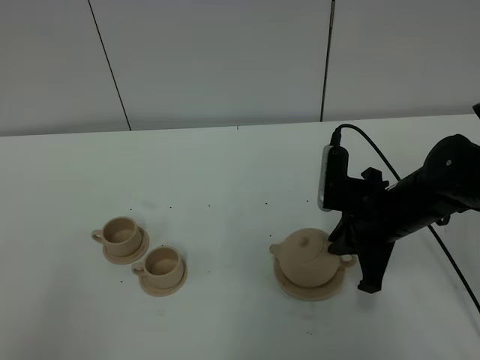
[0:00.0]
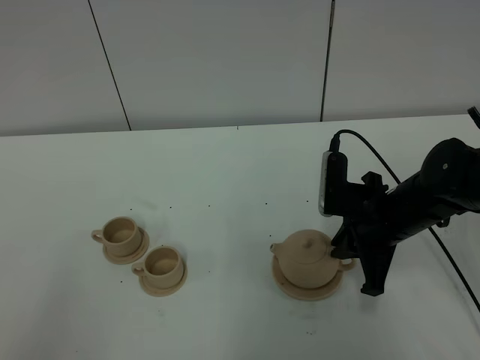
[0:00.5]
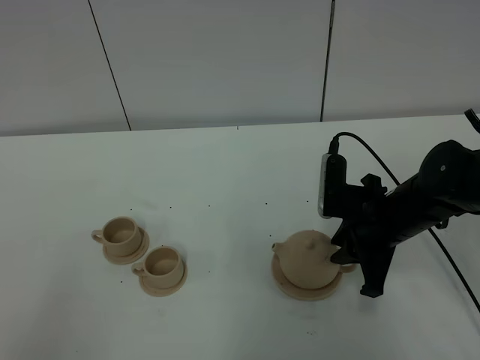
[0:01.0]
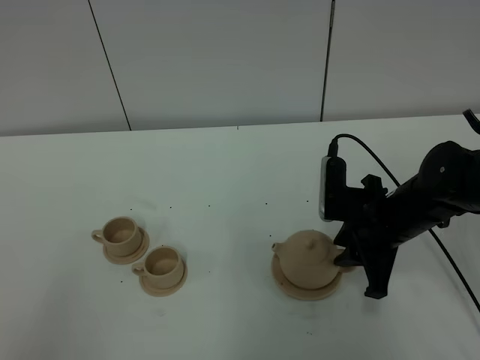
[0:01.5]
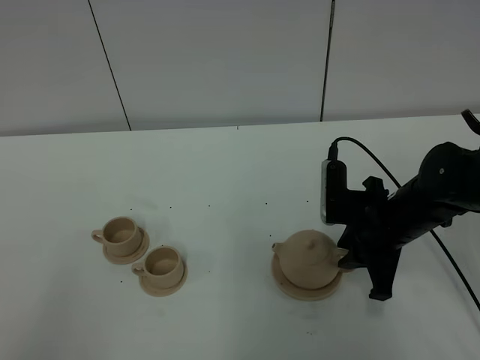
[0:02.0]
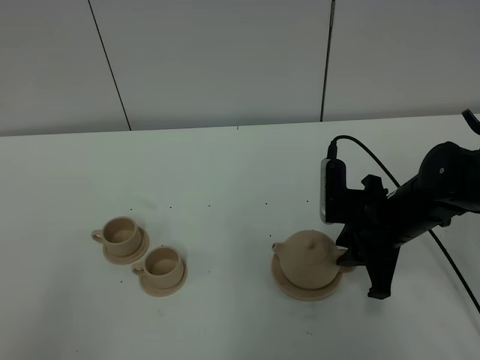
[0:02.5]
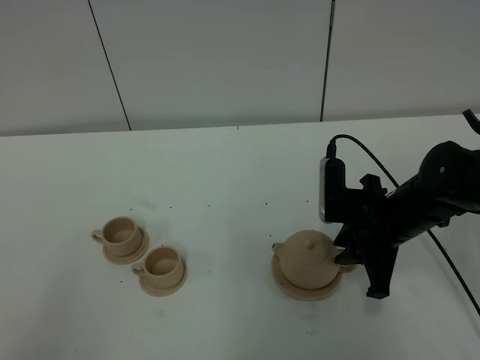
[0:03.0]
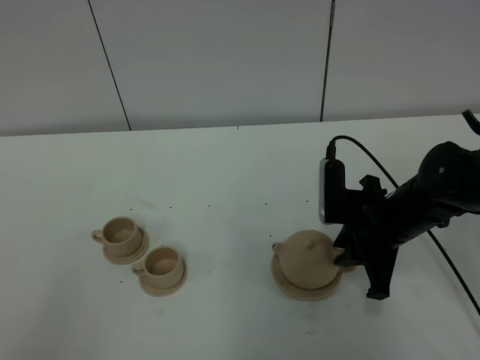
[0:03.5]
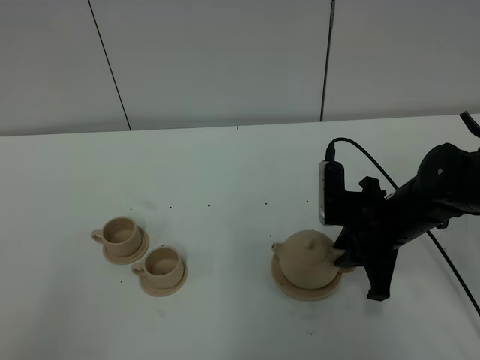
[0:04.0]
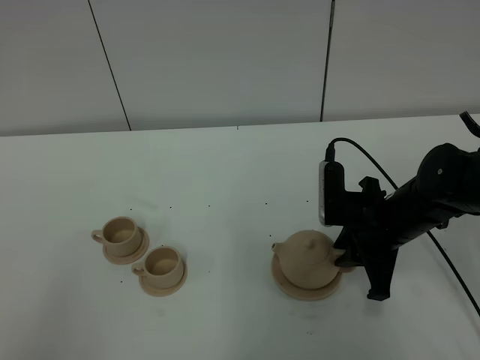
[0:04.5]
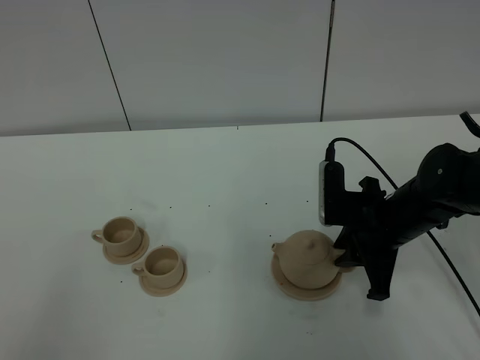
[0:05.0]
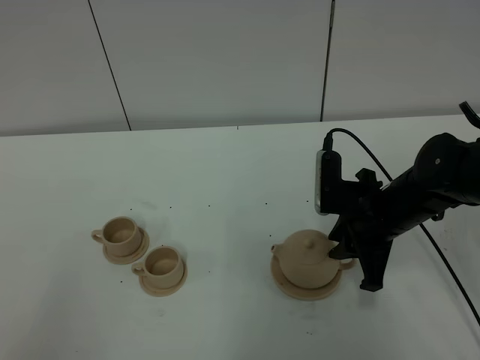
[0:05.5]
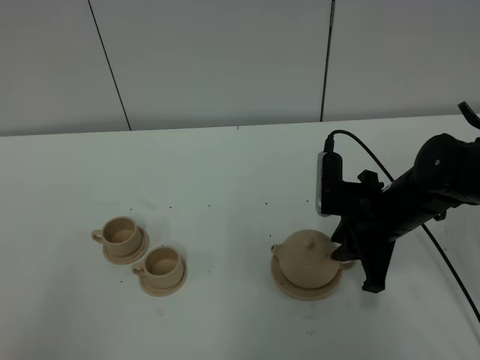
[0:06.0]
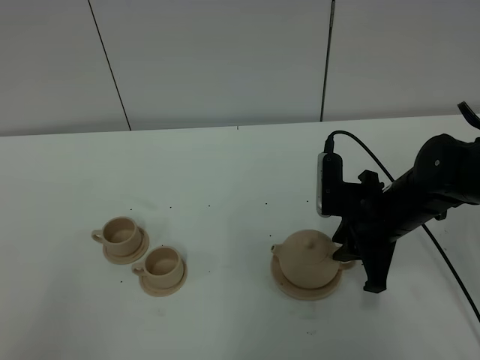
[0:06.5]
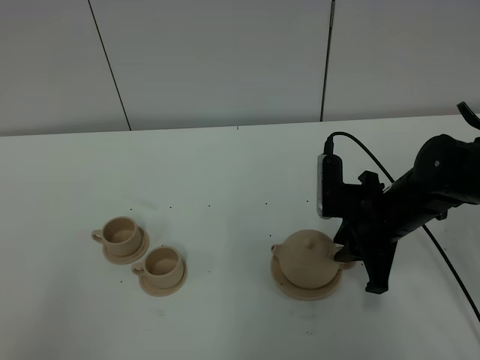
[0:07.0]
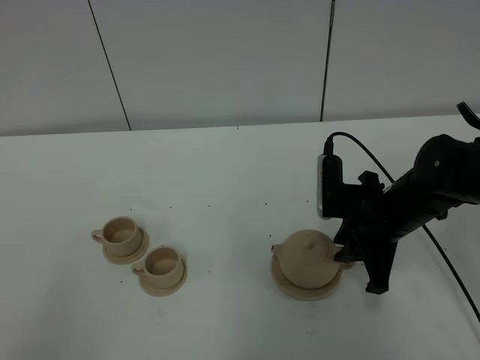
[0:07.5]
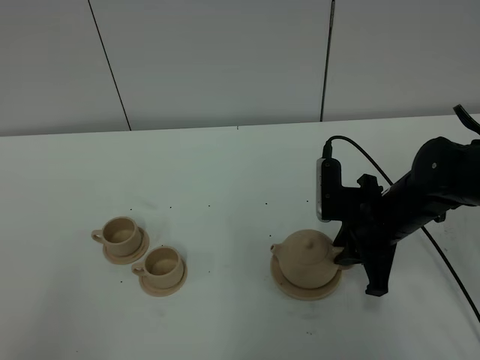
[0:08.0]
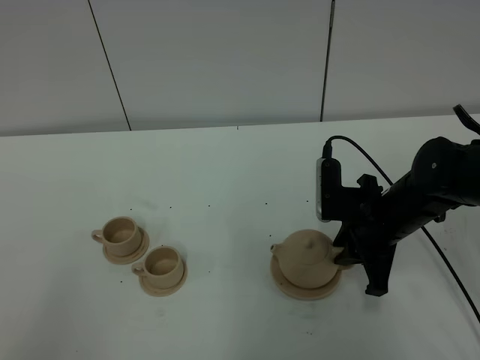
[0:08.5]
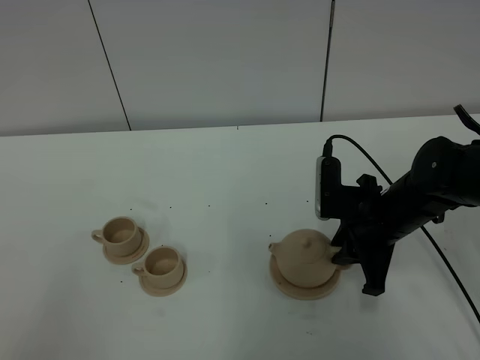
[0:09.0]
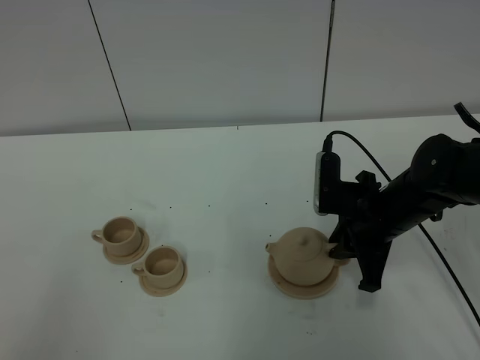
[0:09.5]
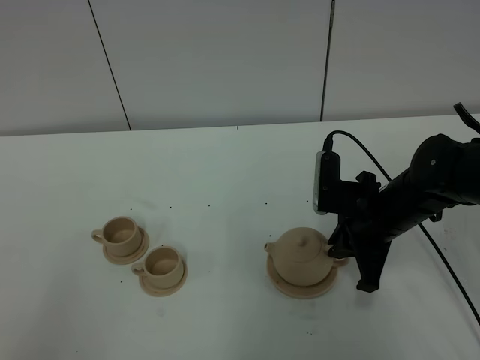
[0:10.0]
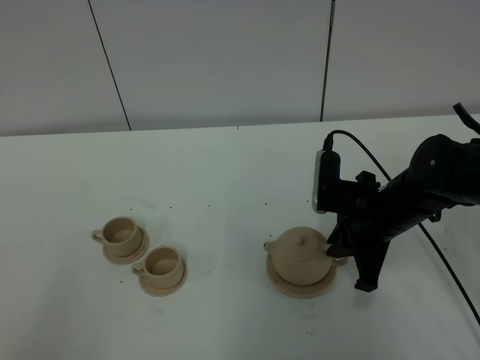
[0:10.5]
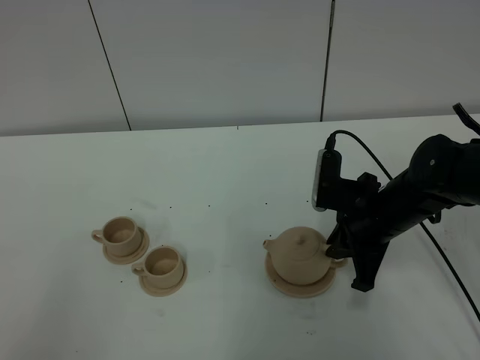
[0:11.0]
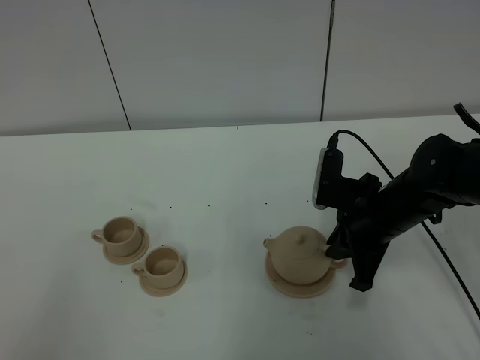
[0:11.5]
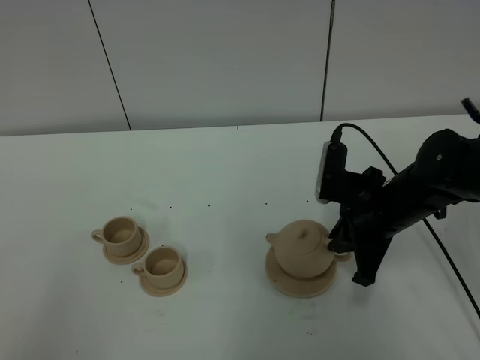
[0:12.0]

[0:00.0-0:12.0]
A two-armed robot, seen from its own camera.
Task of the whole recording: grasp the brown teapot and pour the tea into the two brown teacups one by one, put the brown teapot back in its original place.
Step, 0:00.0 to 0:12.0: Pick up the teapot with the right gripper.
0:00.0 to 0:02.0: The right gripper opens.
0:02.0 to 0:10.0: Both grippers stay about where they are.
0:10.0 to 0:12.0: The grippers move only a little.

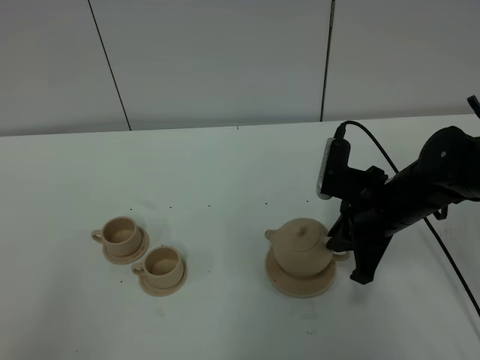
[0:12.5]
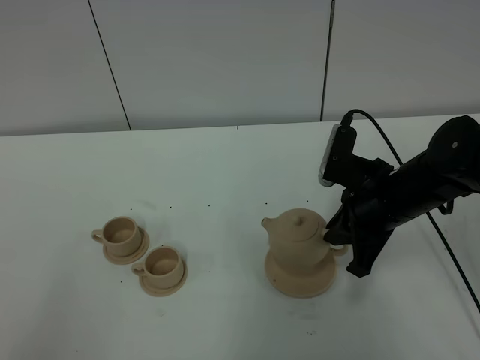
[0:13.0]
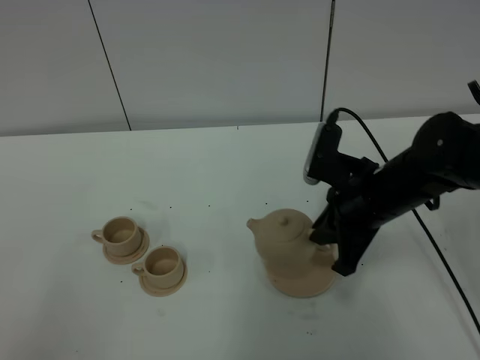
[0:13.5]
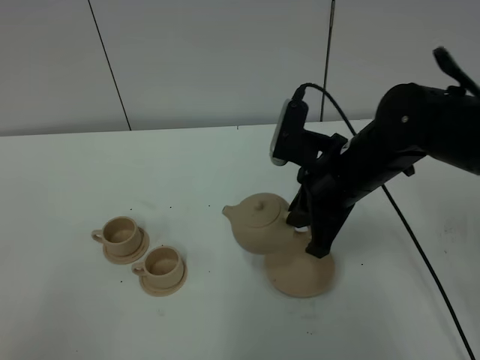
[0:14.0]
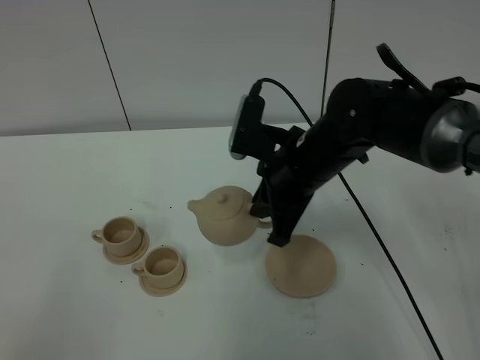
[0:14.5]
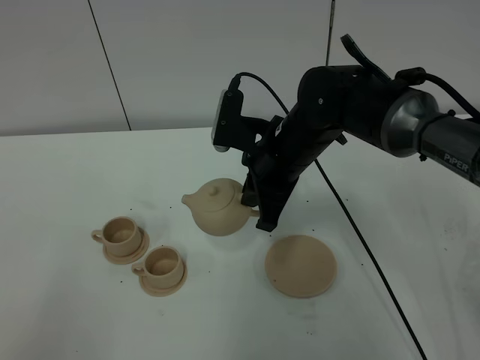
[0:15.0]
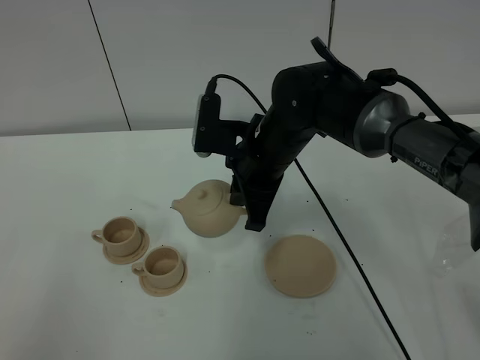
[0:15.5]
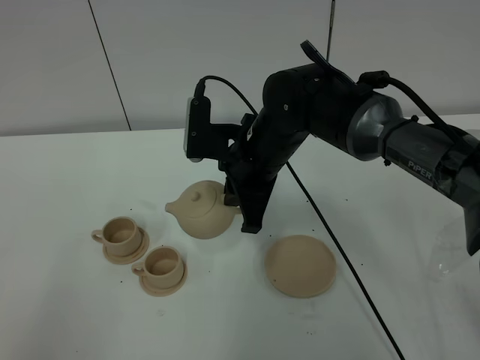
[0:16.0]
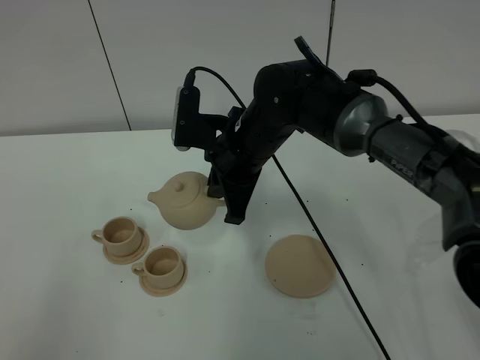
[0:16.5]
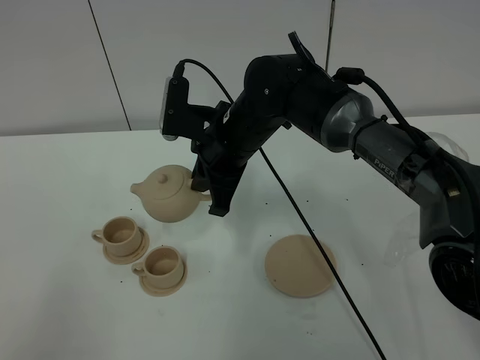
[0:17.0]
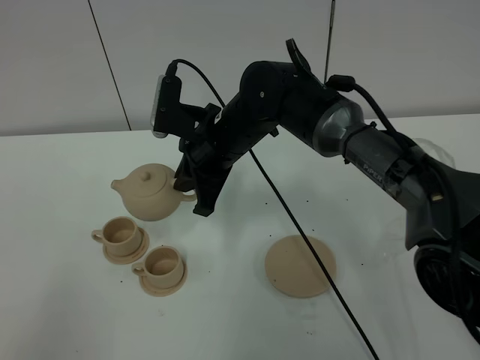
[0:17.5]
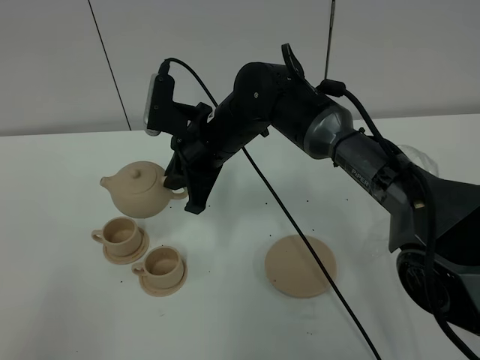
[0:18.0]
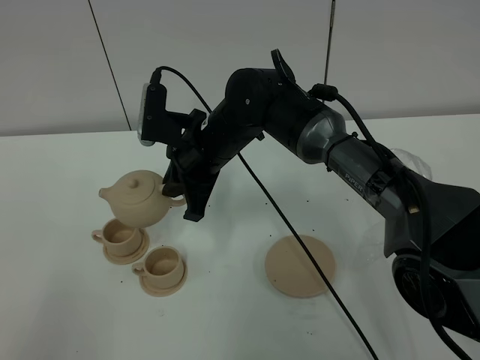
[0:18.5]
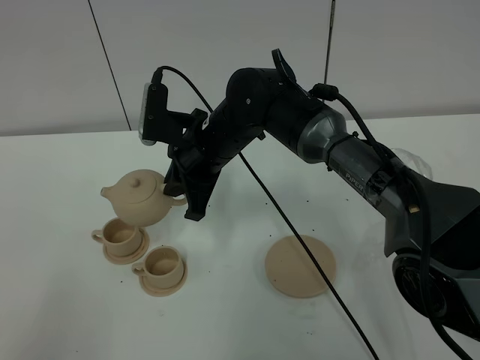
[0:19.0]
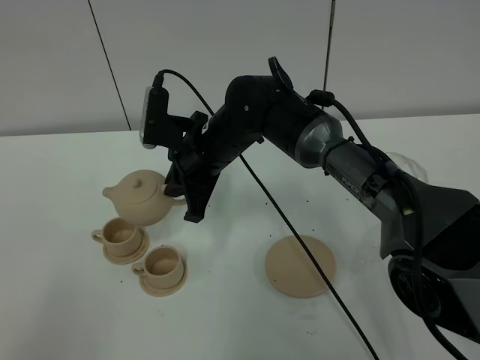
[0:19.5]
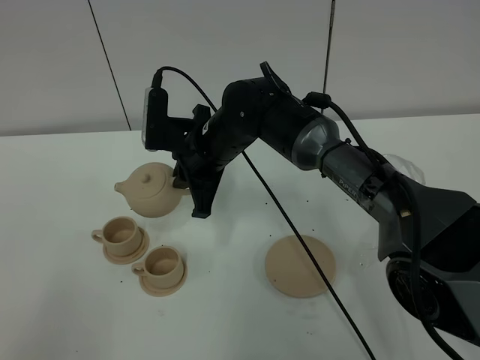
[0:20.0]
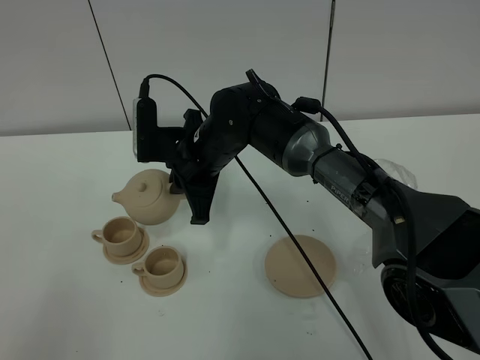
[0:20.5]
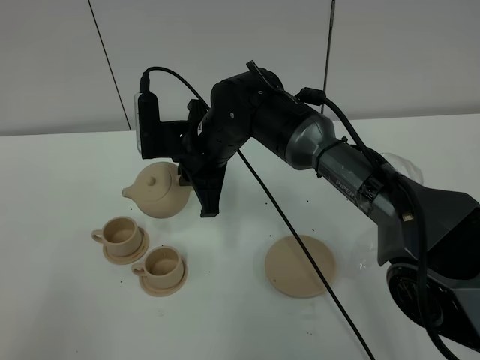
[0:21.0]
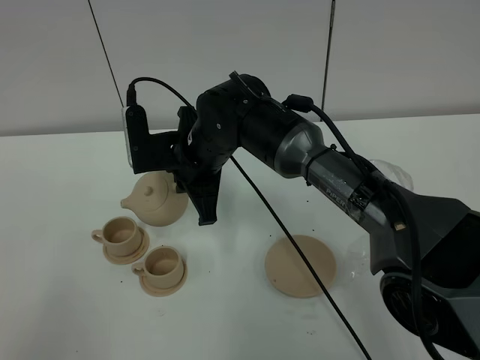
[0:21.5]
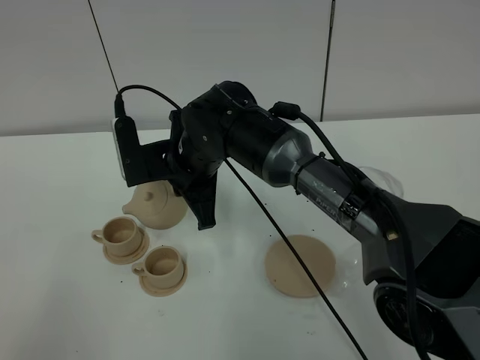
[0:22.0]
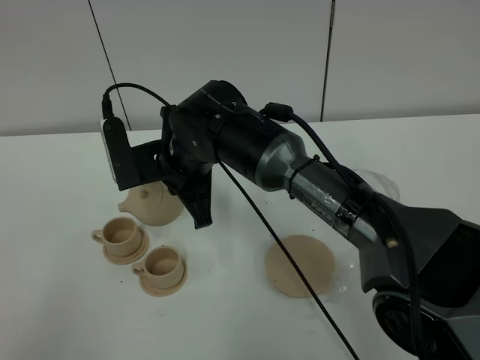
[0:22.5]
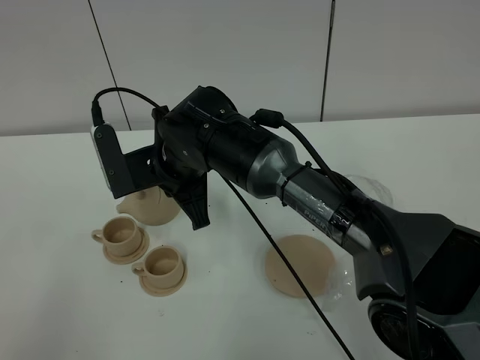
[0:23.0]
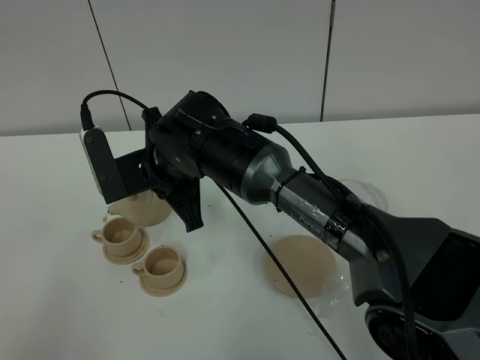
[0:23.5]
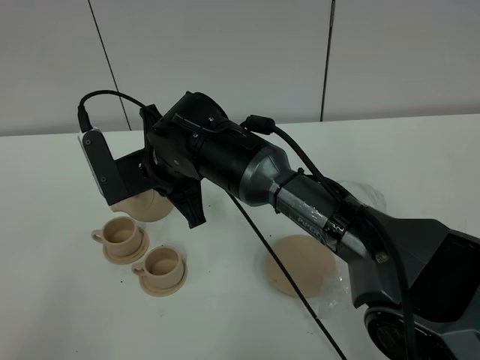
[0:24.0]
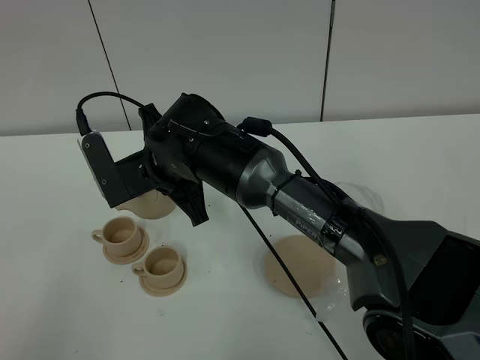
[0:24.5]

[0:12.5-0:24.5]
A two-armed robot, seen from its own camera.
Task of the whole recording: grasp the brown teapot and pour the tea into the two brown teacups one by one, put the brown teapot back in its original place.
0:12.5 to 0:14.5: The right gripper moves to the left and upward, roughly 10 cm.
0:14.5 to 0:16.5: The right gripper travels to the left by approximately 5 cm.
0:18.5 to 0:20.5: There are only small adjustments of the grippers.
0:20.5 to 0:22.5: The grippers stay close to where they were, moving slightly.
0:22.5 to 0:24.5: The grippers move only a little.

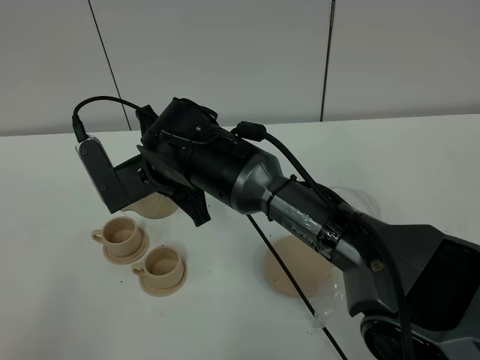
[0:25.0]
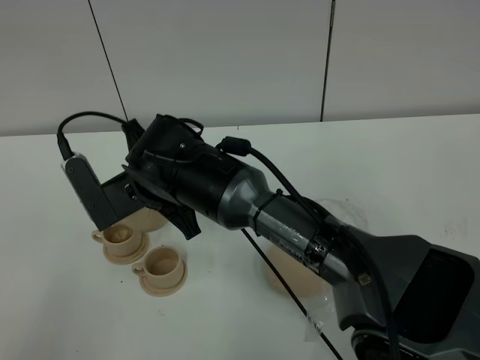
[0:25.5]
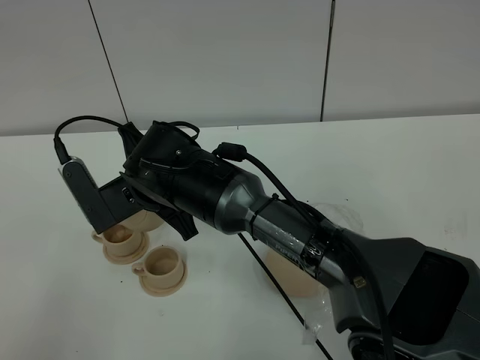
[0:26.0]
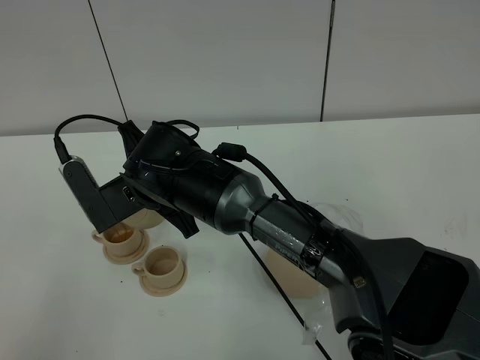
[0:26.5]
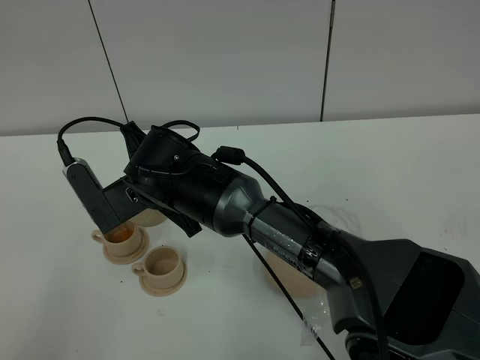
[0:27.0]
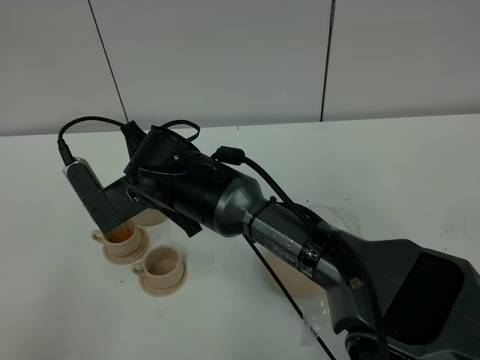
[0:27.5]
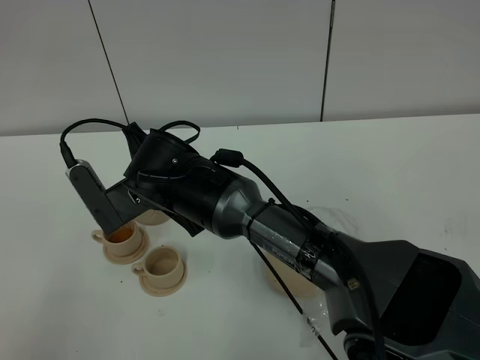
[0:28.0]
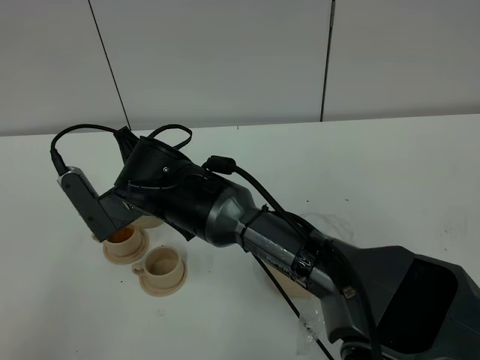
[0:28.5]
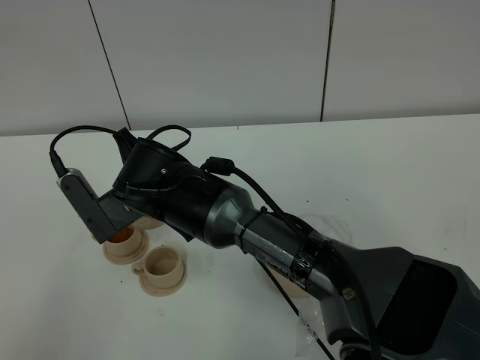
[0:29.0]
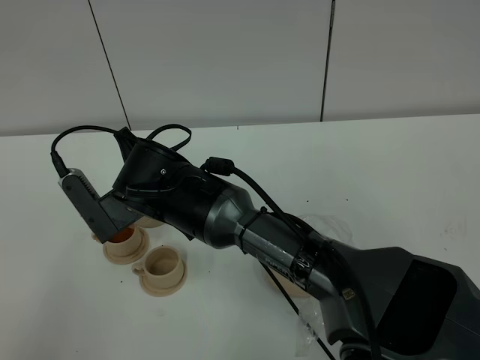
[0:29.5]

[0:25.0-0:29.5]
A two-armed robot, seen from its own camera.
Task of the whole recording: grasp the brown teapot and pour the tea into the two brown teacups one by one, put the brown teapot back in its original place.
0:25.0 to 0:27.0: There are only small adjustments of the grippers.
0:27.0 to 0:29.5: Both grippers stay put.
